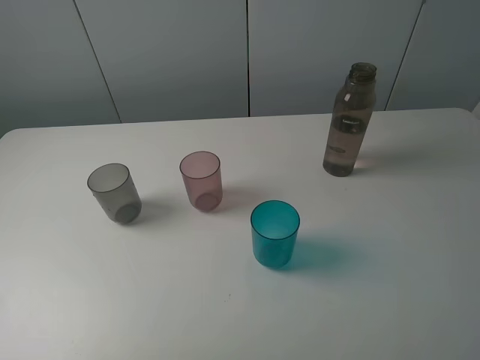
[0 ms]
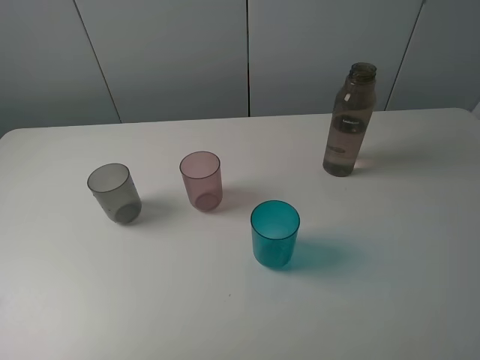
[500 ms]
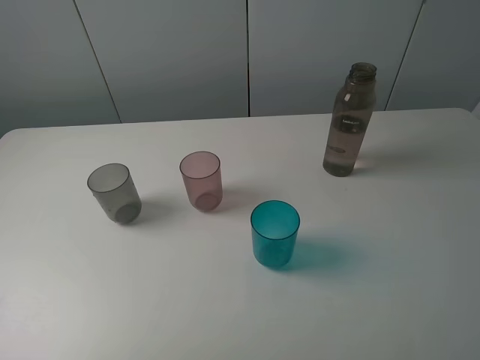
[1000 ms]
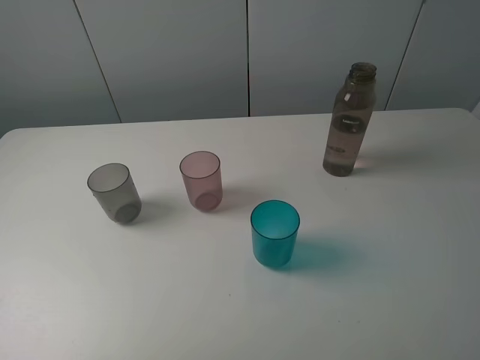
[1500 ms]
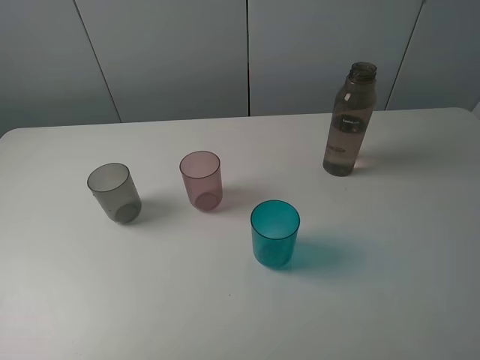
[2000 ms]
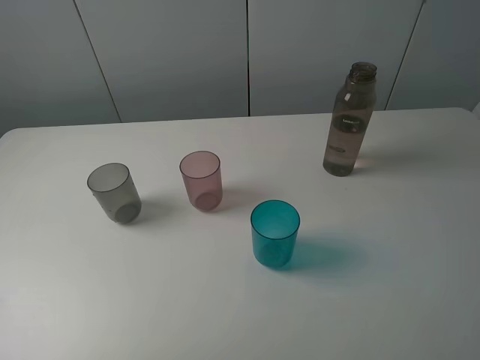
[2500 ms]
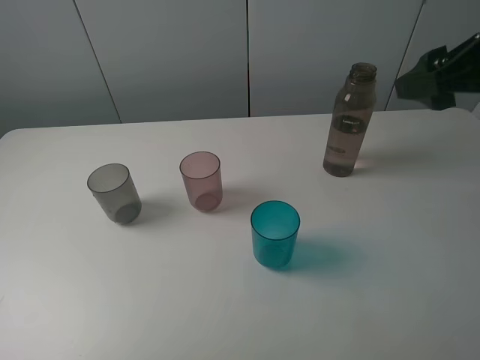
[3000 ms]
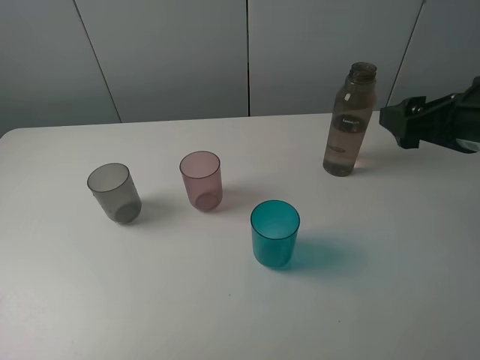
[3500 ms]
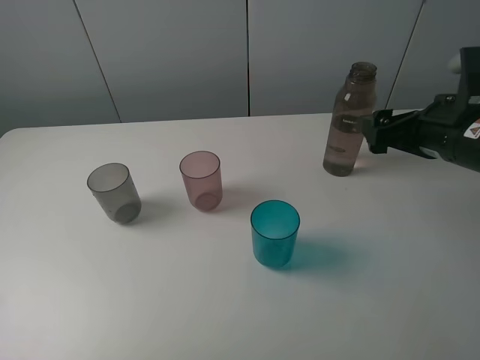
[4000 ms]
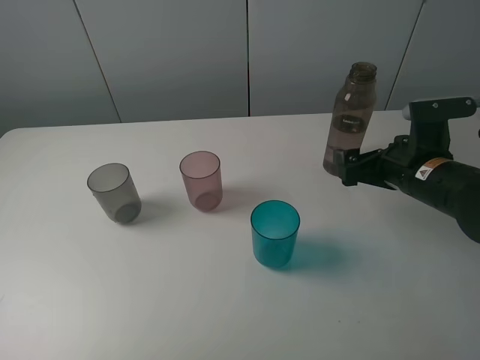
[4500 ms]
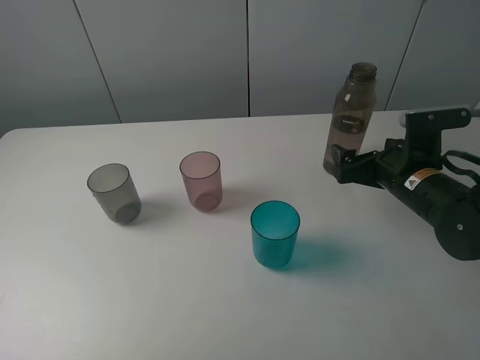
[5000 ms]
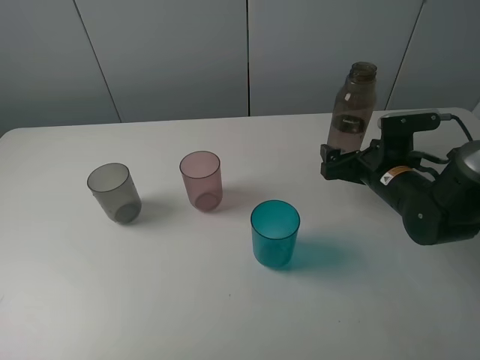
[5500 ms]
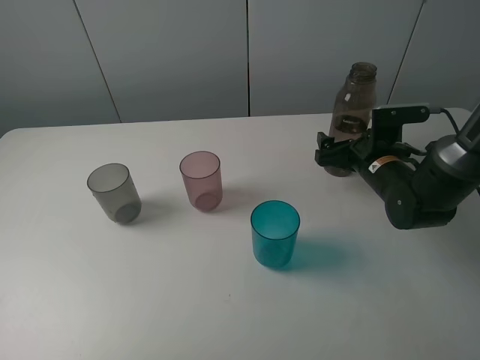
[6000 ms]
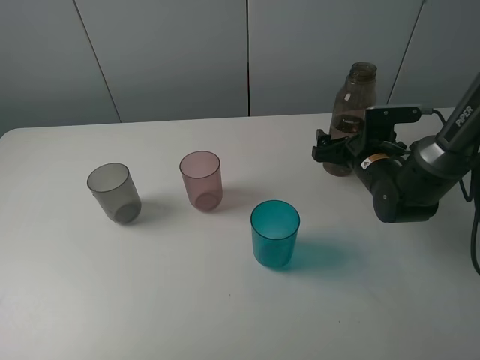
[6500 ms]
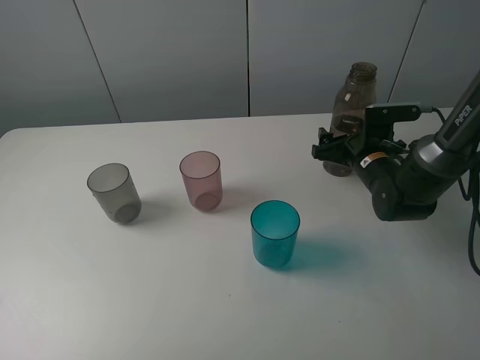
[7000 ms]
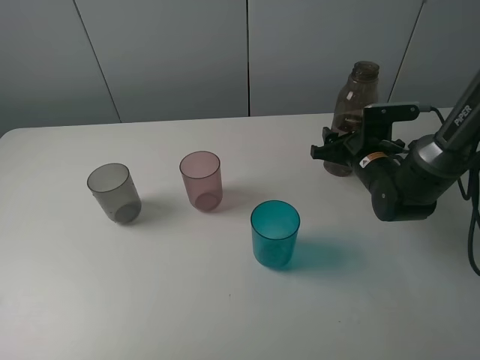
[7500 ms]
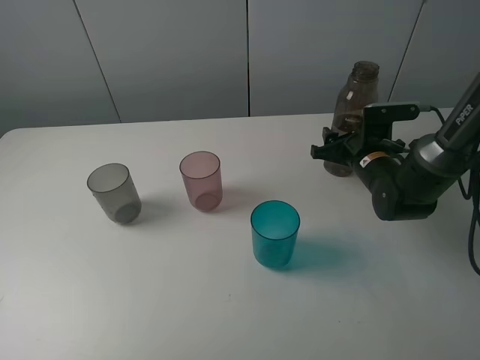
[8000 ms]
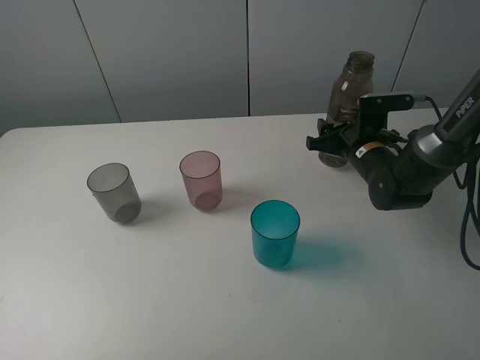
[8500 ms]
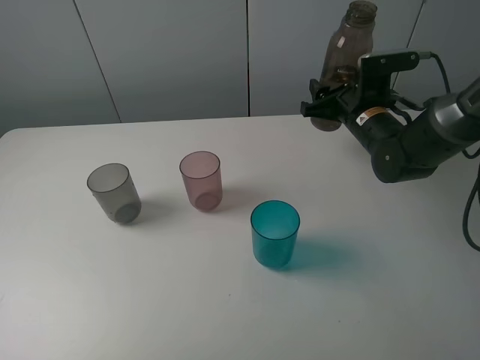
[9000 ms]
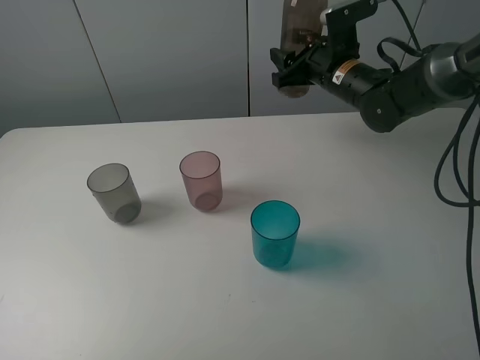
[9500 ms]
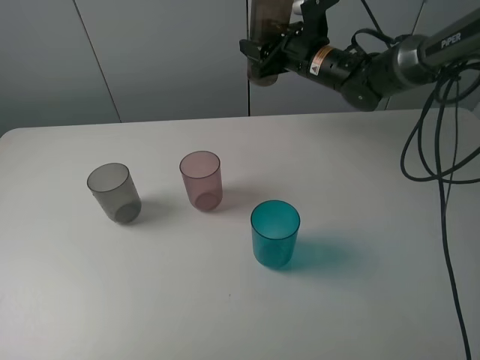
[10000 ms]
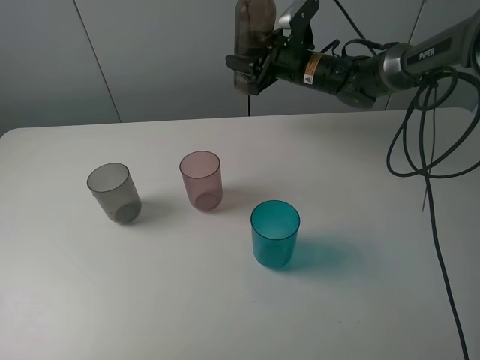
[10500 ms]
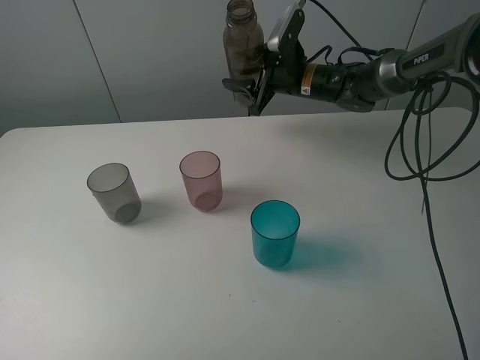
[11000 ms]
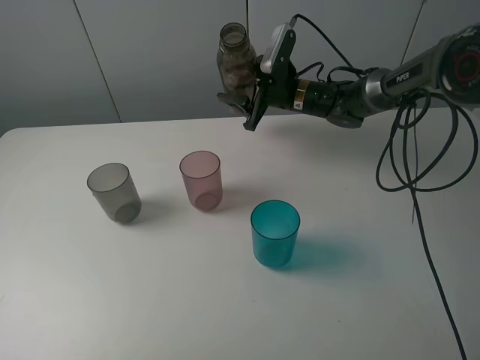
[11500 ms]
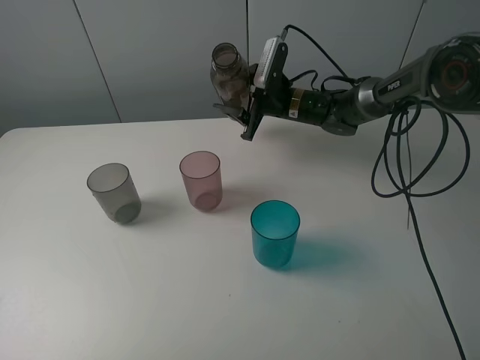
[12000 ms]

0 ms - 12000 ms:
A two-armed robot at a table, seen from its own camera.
Task of the whole recording: pick up the bottle filled with water and pour water into the middle cup of the three cups.
Step, 0 ms - 8000 ms: Grasp the transparent bottle with the right gripper.
2000 ms - 4000 ms: The right gripper travels forward and downward by approximately 25 cm.
4000 ms - 6000 ms: The right gripper is displaced downward and forward by roughly 15 cm.
6000 ms - 8000 ms: The right gripper closes.
8000 ms - 10000 ms: The right gripper heads forward, upward and to the left, covering approximately 20 cm.
10000 ms - 12000 ms: The right gripper moves downward, some 5 cm.

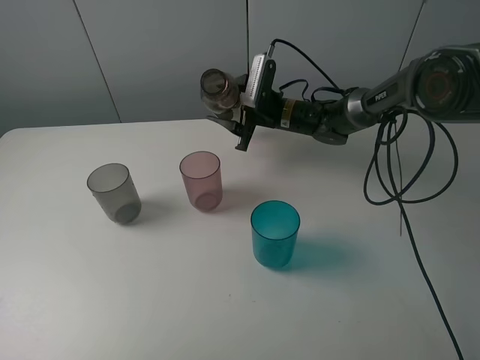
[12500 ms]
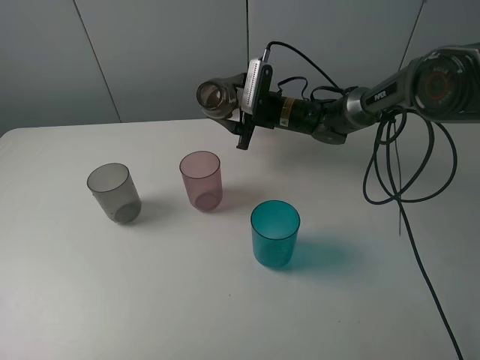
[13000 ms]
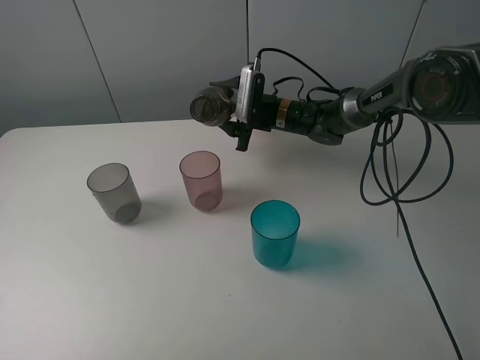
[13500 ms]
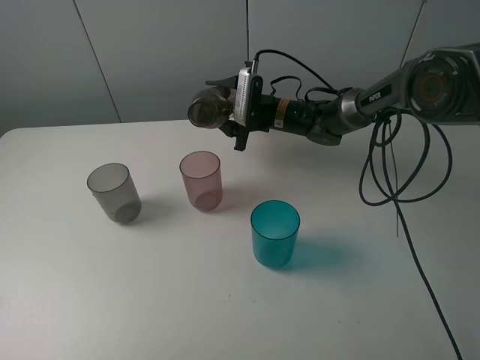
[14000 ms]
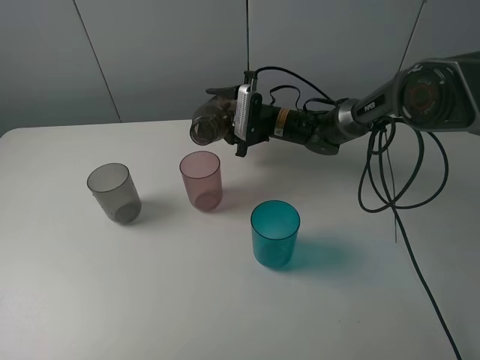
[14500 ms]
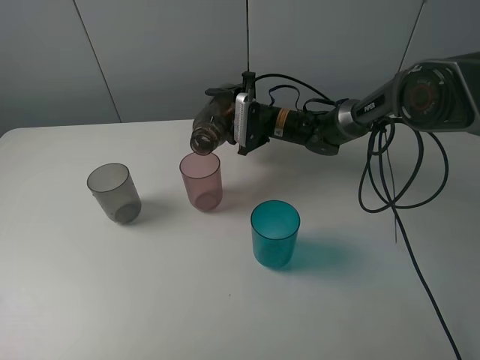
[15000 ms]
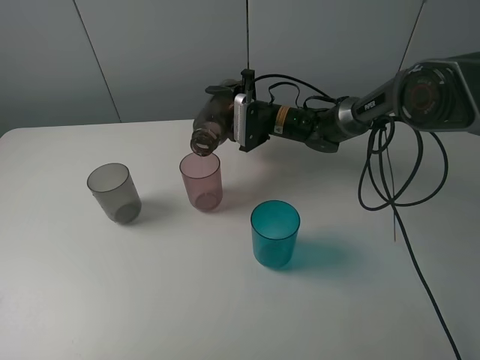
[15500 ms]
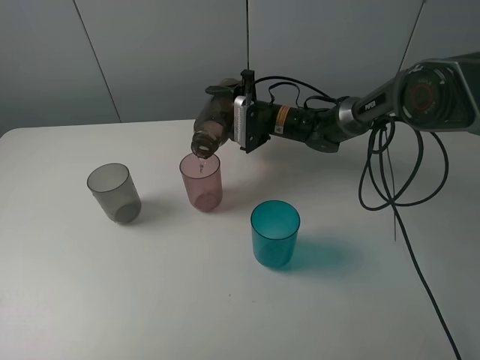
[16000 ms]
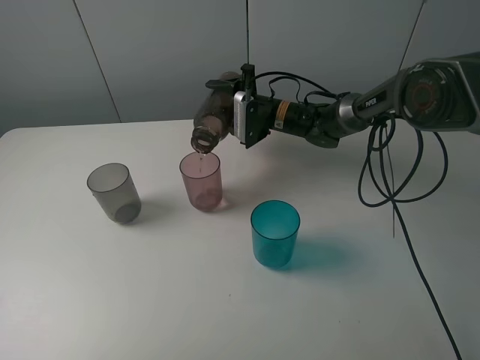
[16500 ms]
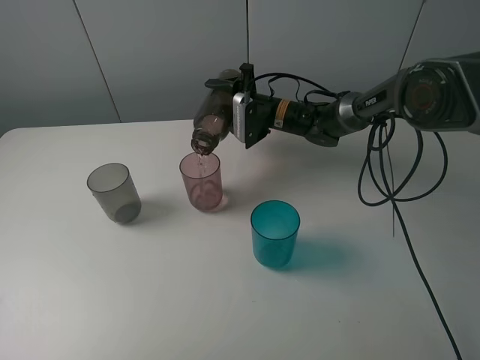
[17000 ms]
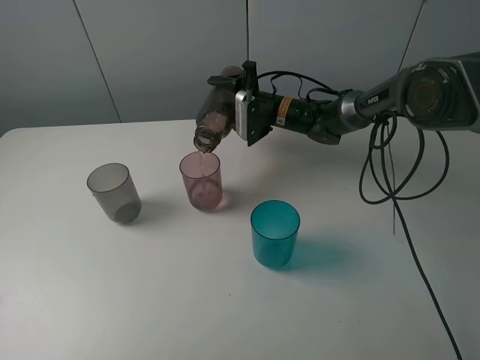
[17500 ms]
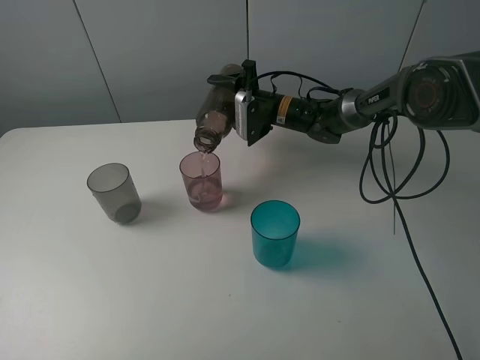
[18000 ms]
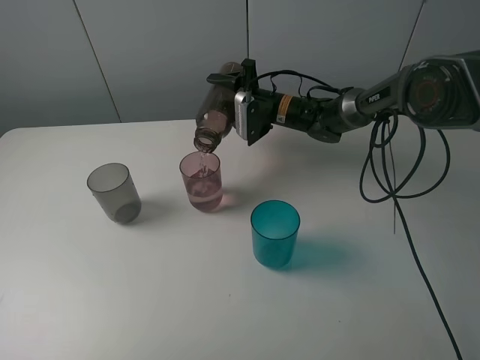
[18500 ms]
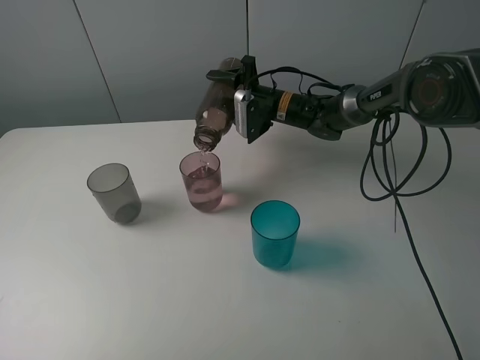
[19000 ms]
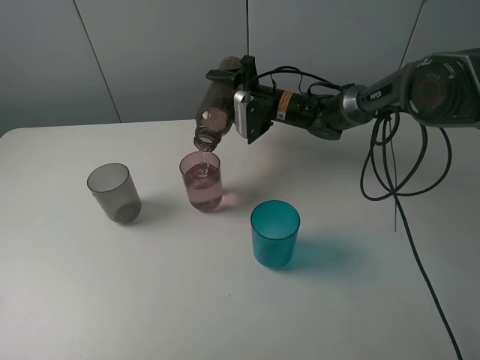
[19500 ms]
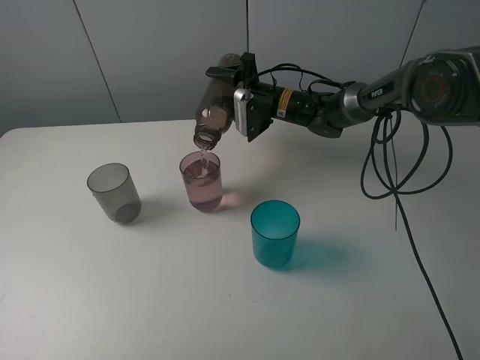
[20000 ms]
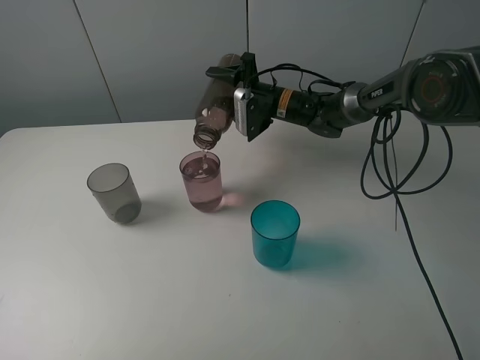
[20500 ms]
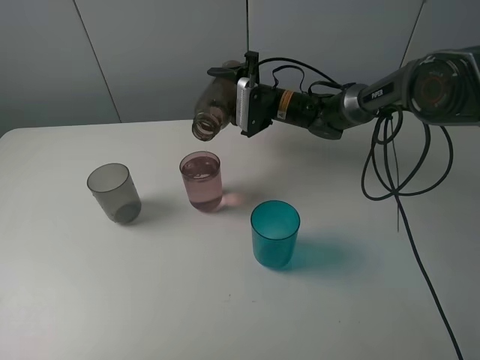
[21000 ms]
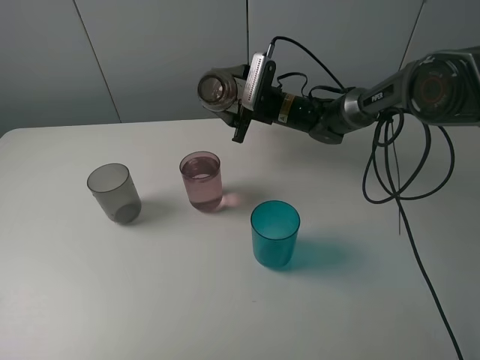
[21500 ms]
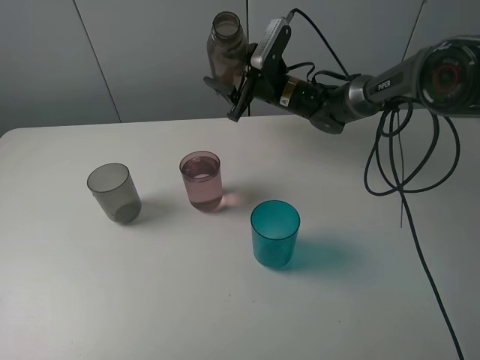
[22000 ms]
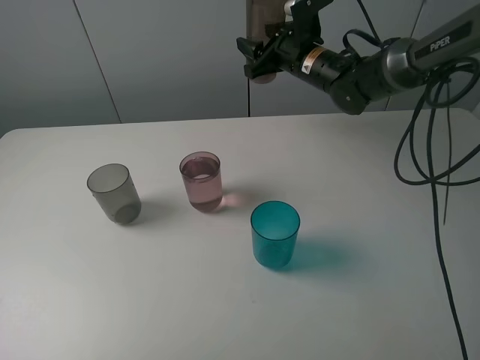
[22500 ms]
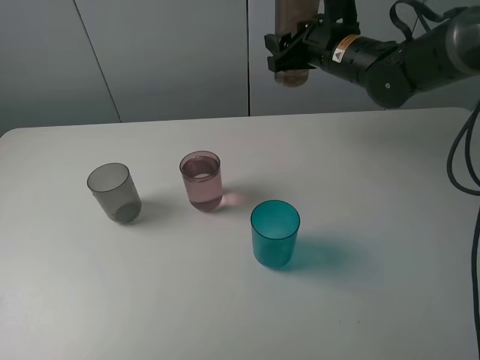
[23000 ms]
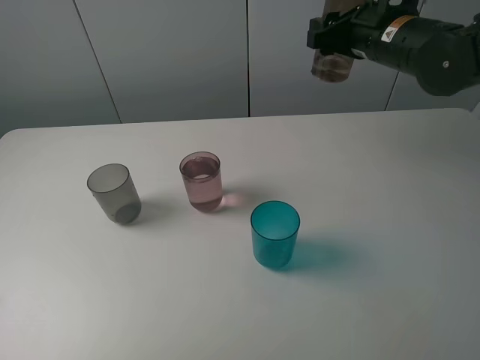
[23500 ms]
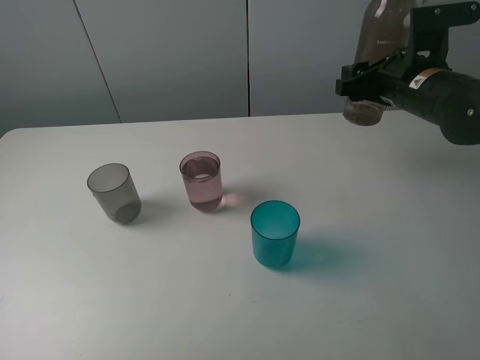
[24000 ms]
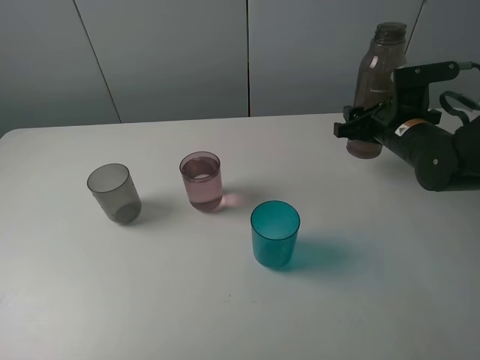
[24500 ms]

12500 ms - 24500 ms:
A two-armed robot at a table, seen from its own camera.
Task of the whole recording: pick up the bottle filled with water and pour water into the middle cup of the three cups.
Step, 12500 ms - 15500 ms: Pour water from transparent bottle to red cup with the right gripper.
14500 ms - 16500 ms: There are only small adjustments of the grippers.
16500 ms - 18500 ms: There are only small adjustments of the grippers.
18500 ms - 20500 ms: The two grippers keep their place.
20500 ms - 22500 ms: The right gripper goes approximately 10 cm upward.
22500 ms - 24500 ms: The right gripper heads backward, to the right and downward, covering some 20 cm.

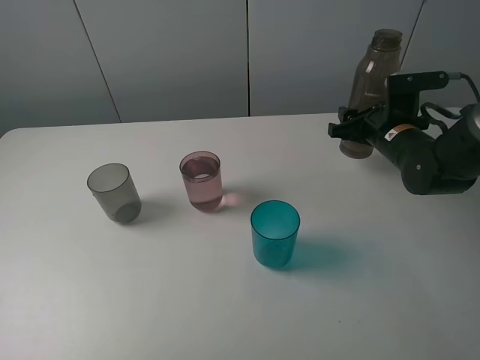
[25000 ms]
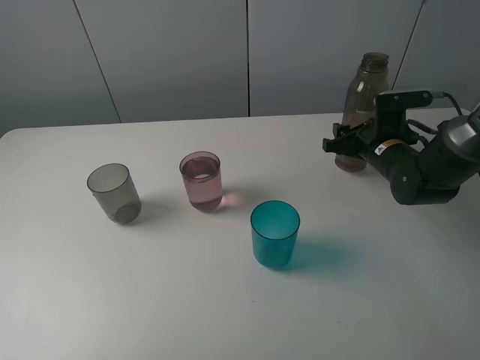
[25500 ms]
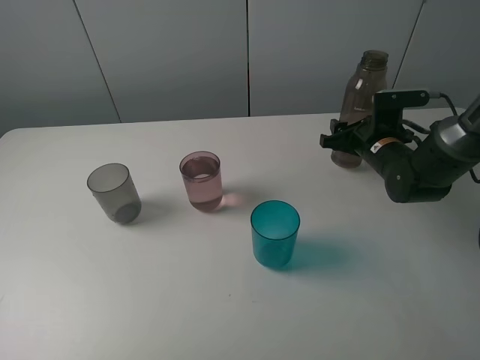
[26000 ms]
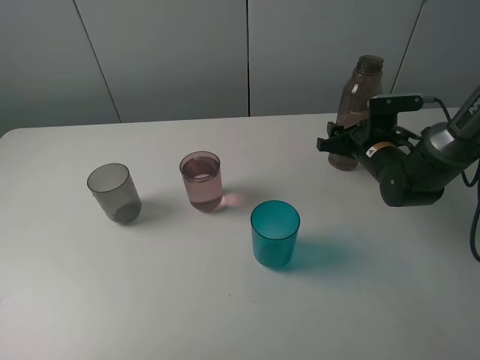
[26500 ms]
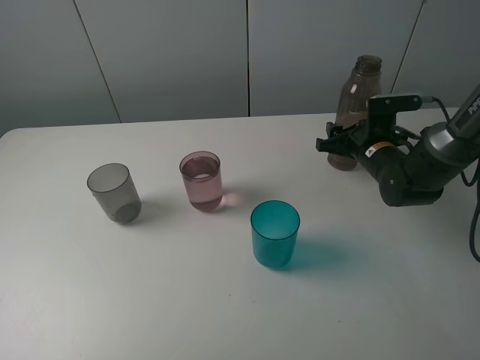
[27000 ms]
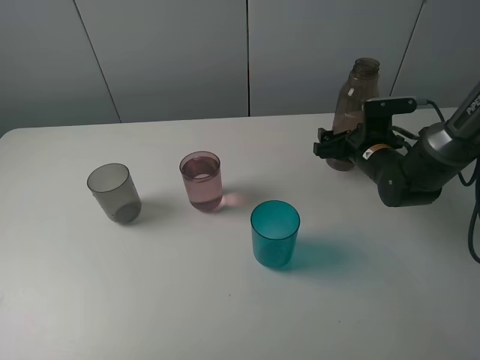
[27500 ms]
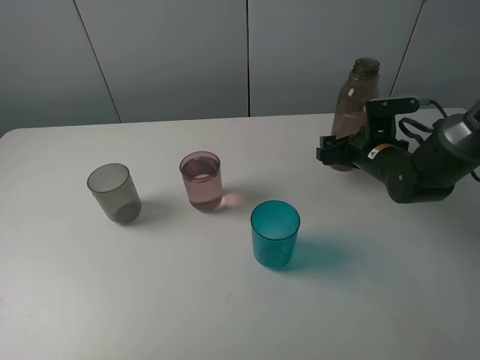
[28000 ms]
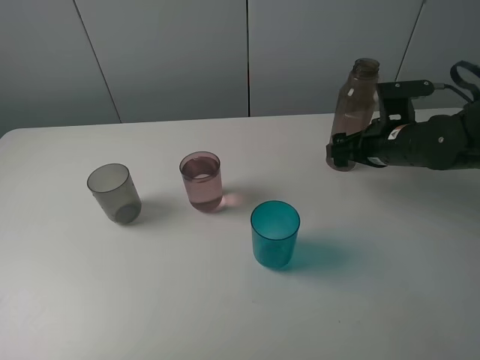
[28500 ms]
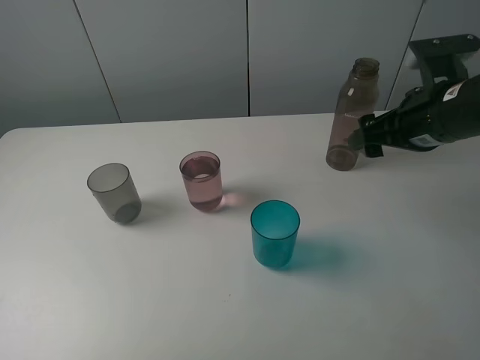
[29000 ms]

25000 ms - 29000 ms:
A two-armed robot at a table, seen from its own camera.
Task of the whole recording: pick up the bottle filled with water and pour water into the middle cup of the three cups.
Step, 25000 ms - 28500 ms: Place the transparent bottle with the right gripper.
25000 ms - 27000 ms: The grippers stay close to where they were, moving slightly.
27000 ms - 29000 ms: The right gripper travels upward and backward by about 20 cm, and opens.
